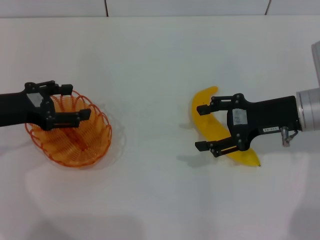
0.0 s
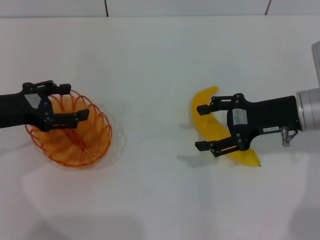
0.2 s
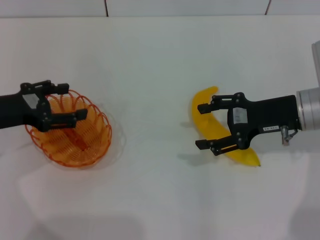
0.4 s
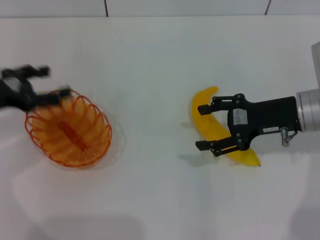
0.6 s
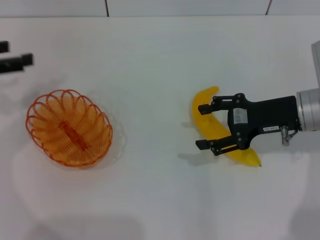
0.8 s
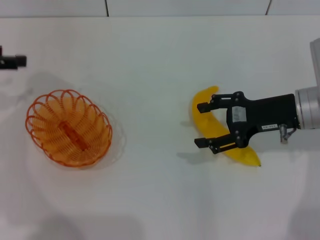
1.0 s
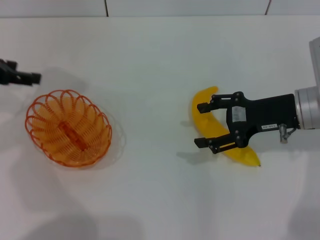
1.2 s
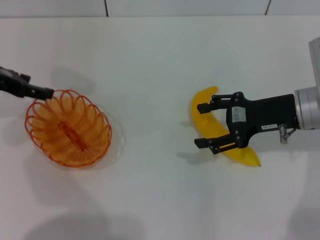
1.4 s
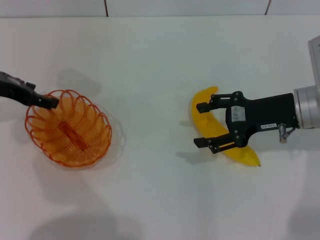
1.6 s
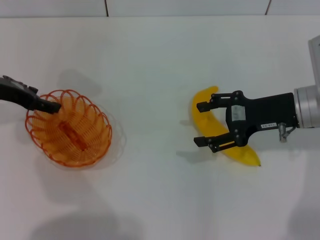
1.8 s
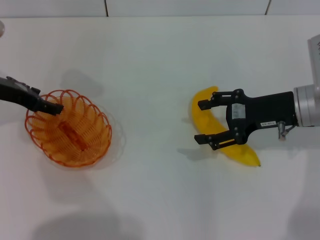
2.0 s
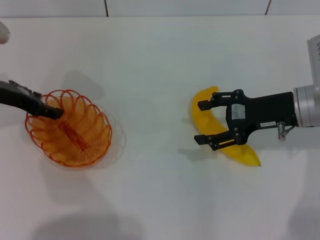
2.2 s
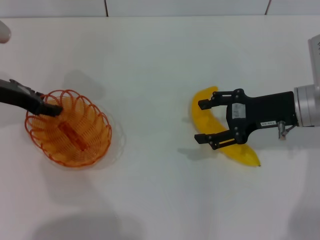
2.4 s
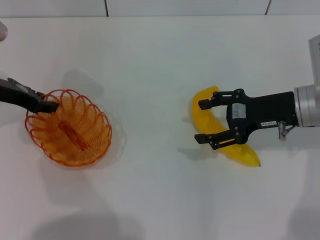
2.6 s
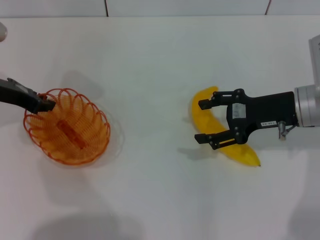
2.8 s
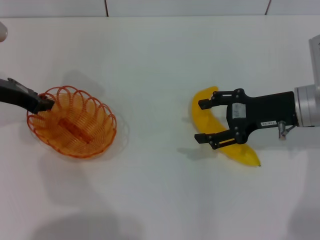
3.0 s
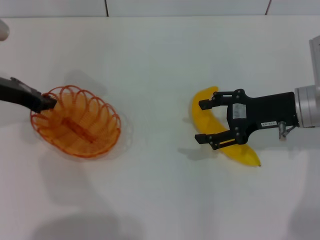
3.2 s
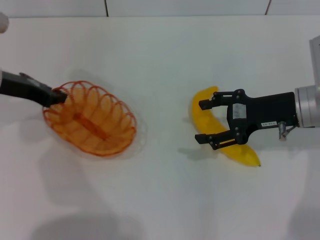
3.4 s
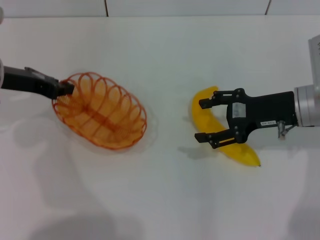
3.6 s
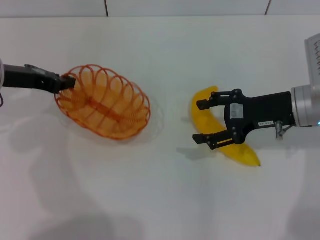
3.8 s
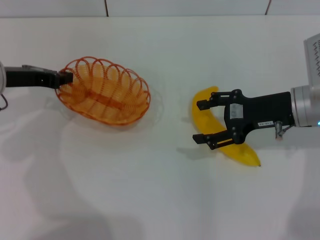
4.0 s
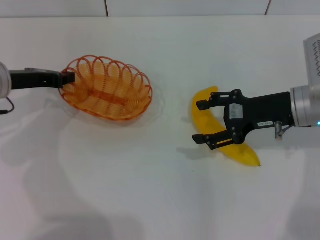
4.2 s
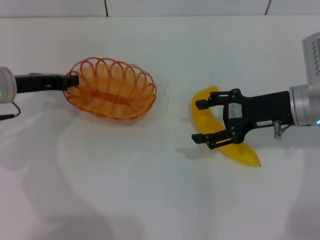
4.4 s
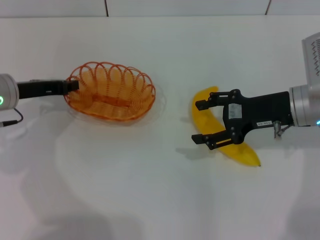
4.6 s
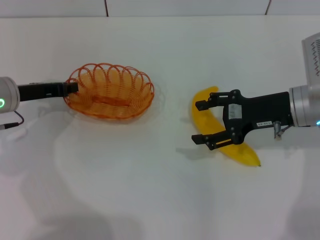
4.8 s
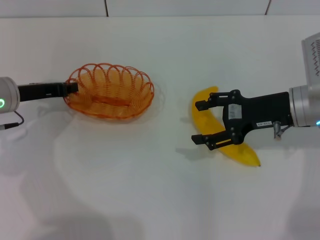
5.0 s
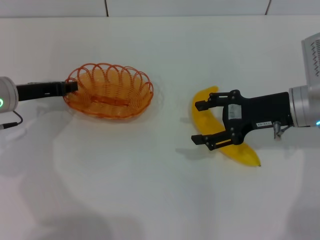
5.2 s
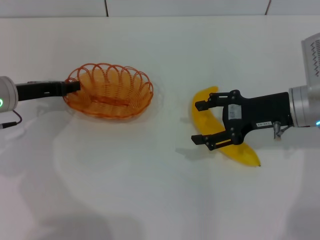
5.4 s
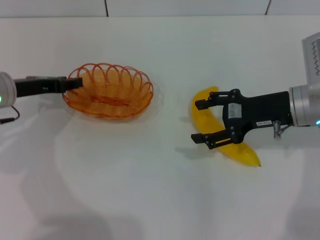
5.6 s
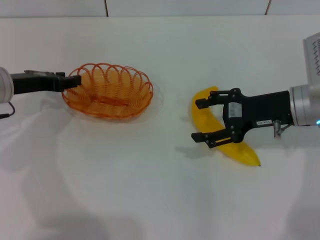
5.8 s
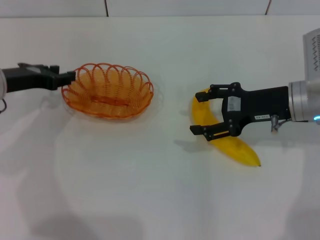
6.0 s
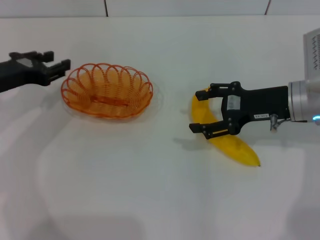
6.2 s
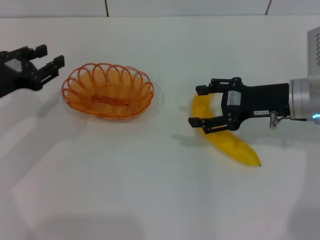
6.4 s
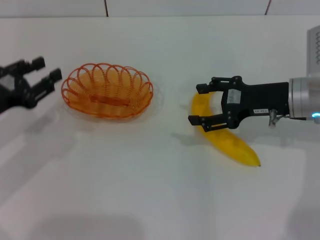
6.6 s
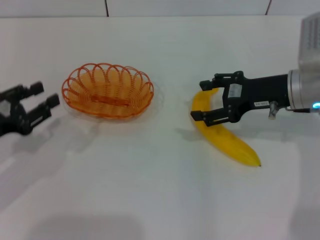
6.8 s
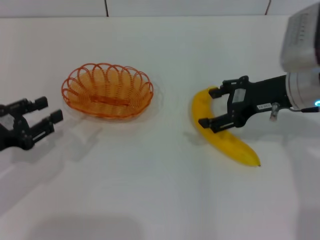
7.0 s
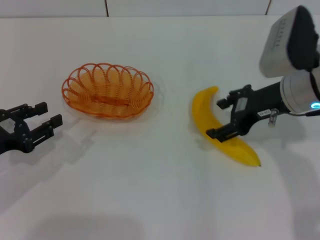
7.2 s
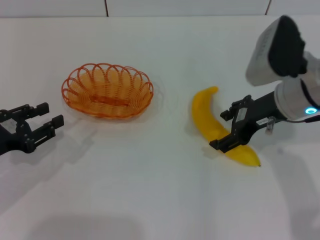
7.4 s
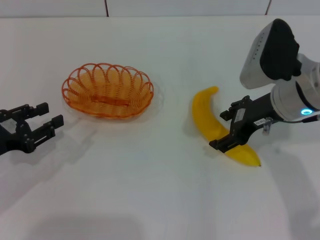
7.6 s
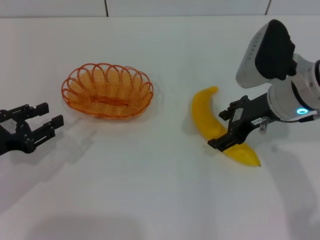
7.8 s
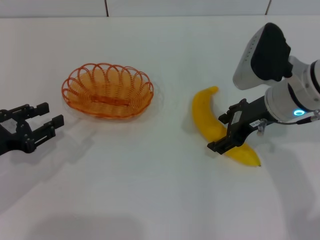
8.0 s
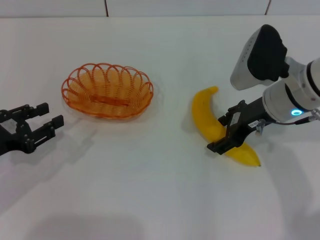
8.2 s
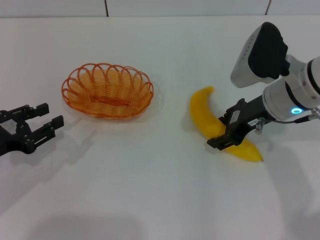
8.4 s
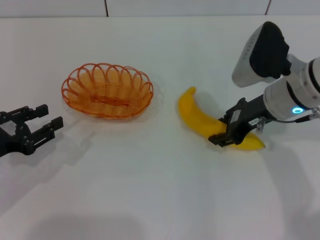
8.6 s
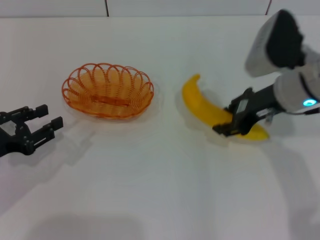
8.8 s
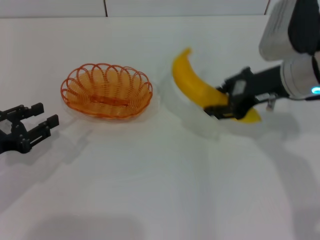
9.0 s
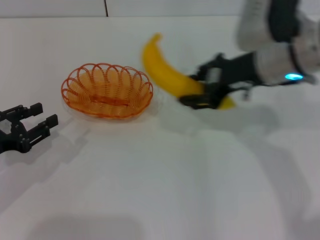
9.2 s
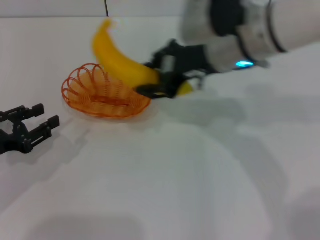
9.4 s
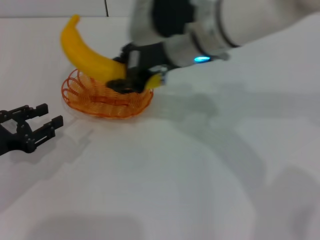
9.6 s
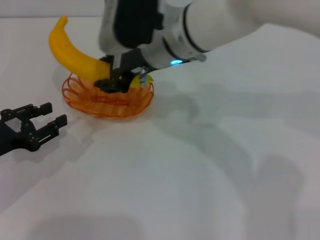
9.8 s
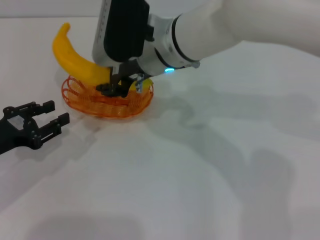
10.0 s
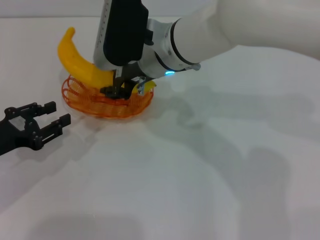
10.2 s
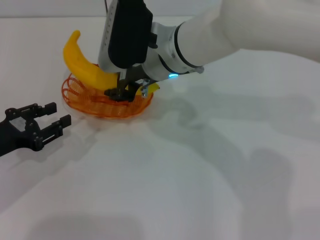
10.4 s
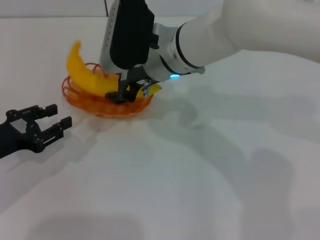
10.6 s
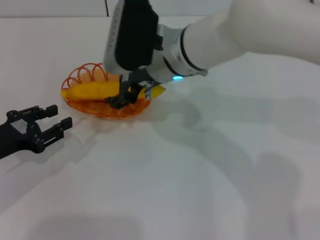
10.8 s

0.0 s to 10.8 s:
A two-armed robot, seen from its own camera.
Step, 0.0 to 3.6 s: Pick up the basket with the left gripper.
Step, 3.8 to 6.4 s: Place the basket in the center of view with the left gripper.
Step, 6.6 to 8.8 s: Pick up the banana with the right gripper.
0.0 to 1.6 s: The left gripper shifts roughly 5 cm forward.
1.6 to 3.0 s: The left gripper closes its fingers.
4.6 to 6.2 s: The left gripper opens.
6.2 to 7.8 s: The left gripper heads backward, covering about 10 cm, while the right gripper changes place by approximately 5 cm.
7.8 to 9.2 s: The right gripper is displaced upward by some 5 cm, and closes its fingers.
9.2 to 10.8 s: The right gripper moves to the left, about 15 cm, and opens up.

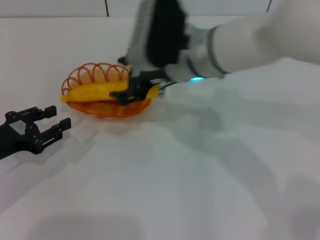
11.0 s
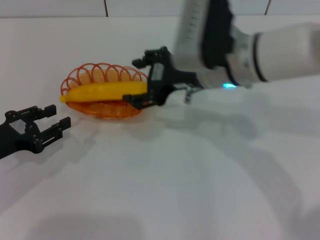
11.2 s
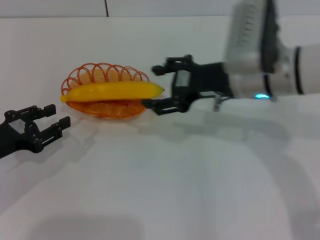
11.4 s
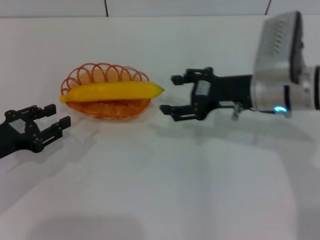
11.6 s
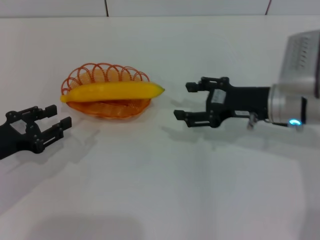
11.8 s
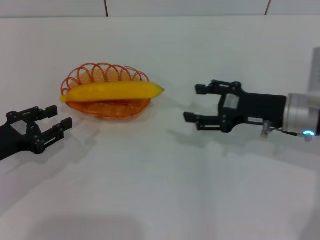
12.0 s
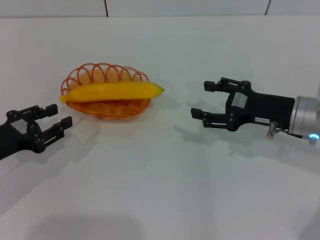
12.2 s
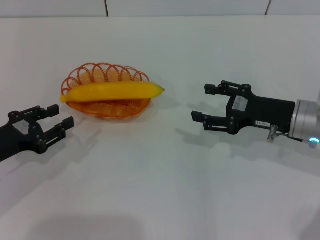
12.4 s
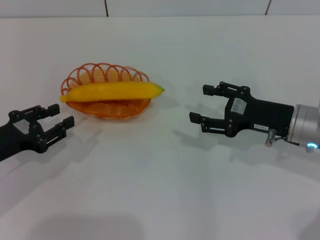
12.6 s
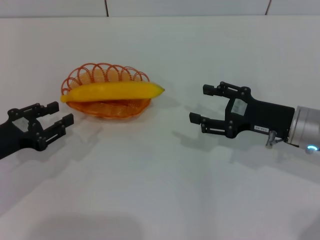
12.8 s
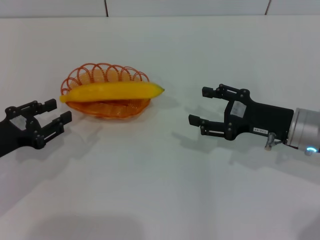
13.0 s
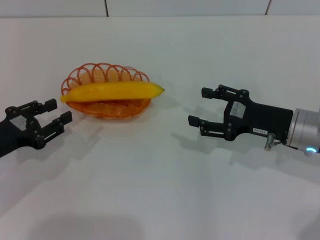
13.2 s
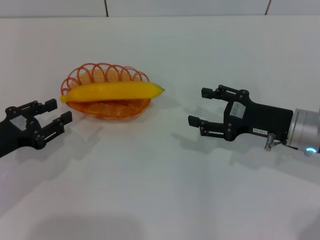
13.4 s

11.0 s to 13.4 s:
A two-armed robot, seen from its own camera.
11.0 to 12.2 s: The right gripper travels to the right and downward by approximately 20 cm.
12.2 to 13.4 s: There are only small adjustments of the grippers.

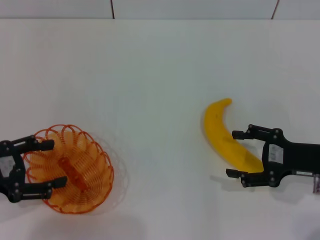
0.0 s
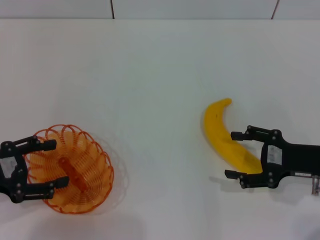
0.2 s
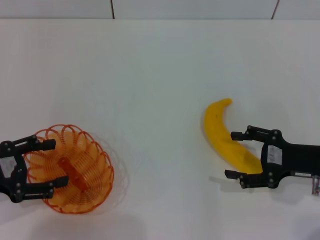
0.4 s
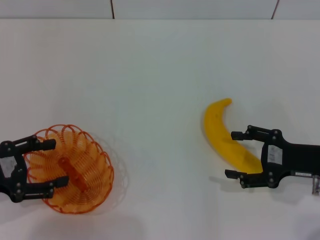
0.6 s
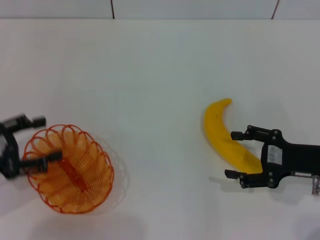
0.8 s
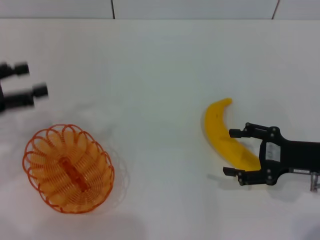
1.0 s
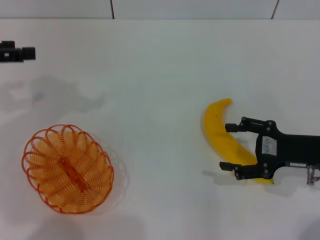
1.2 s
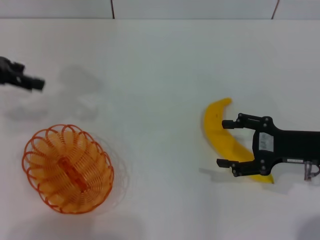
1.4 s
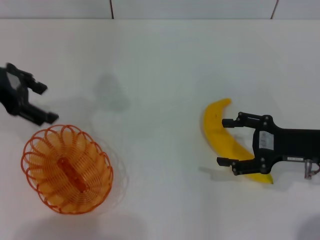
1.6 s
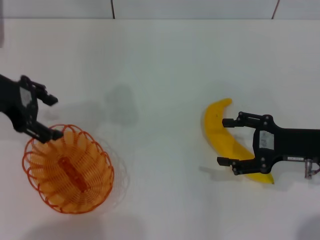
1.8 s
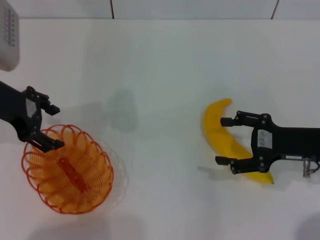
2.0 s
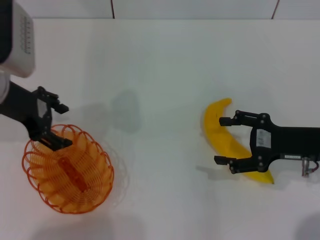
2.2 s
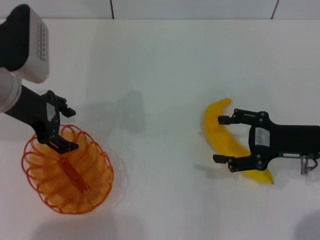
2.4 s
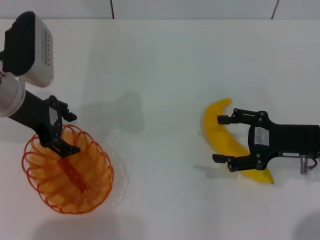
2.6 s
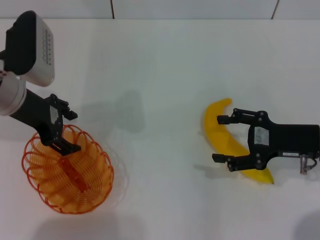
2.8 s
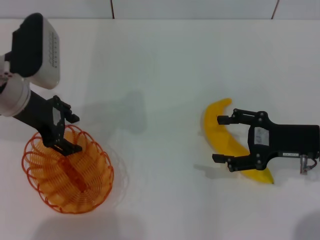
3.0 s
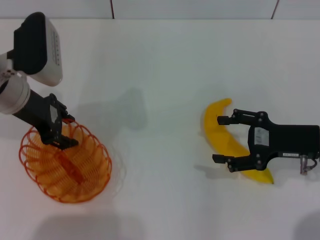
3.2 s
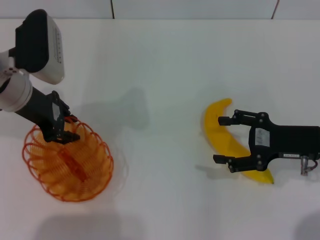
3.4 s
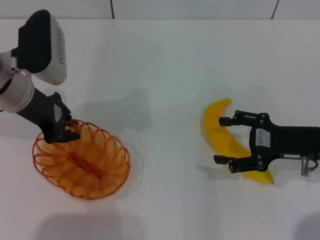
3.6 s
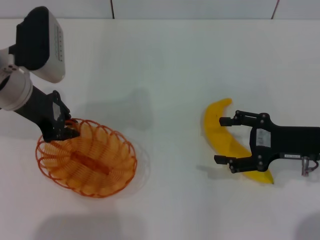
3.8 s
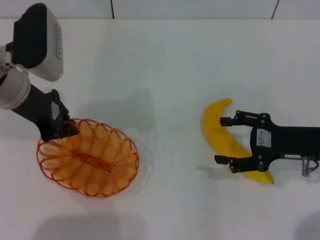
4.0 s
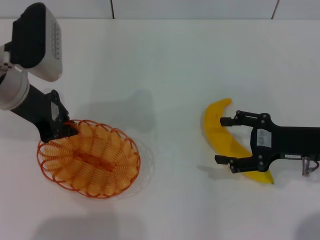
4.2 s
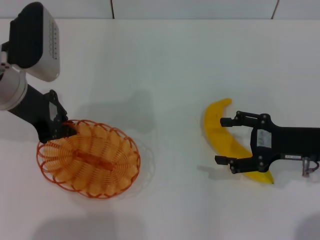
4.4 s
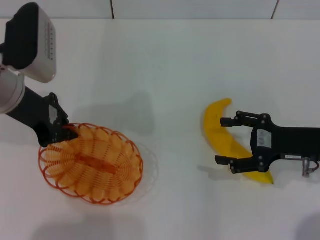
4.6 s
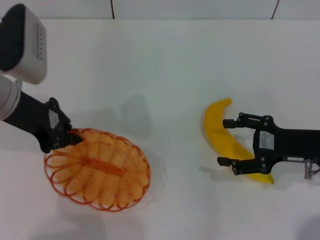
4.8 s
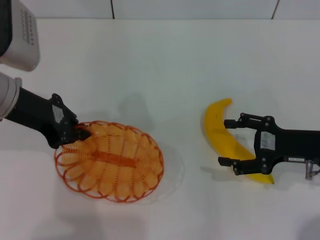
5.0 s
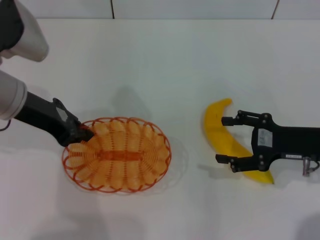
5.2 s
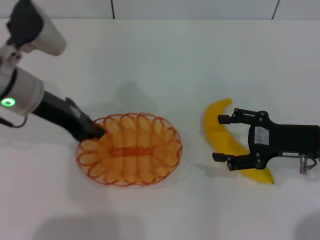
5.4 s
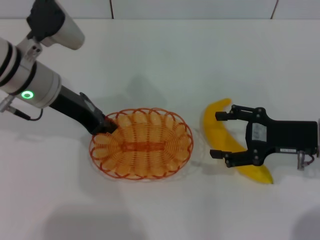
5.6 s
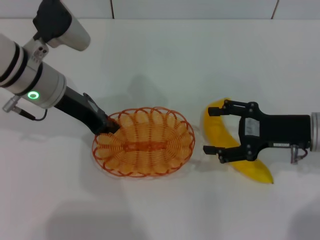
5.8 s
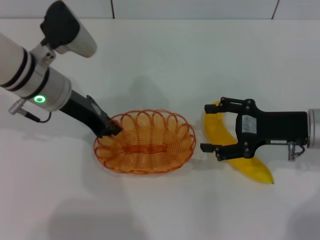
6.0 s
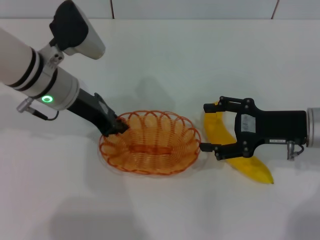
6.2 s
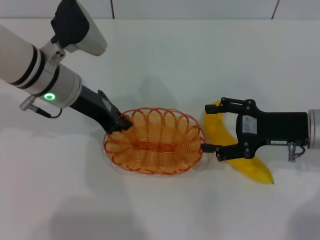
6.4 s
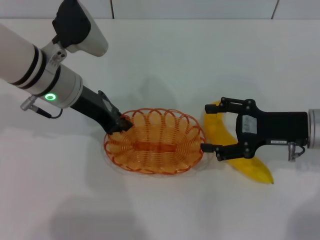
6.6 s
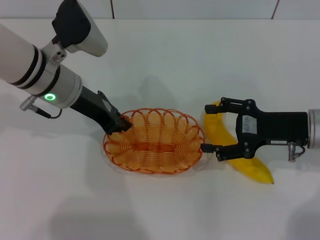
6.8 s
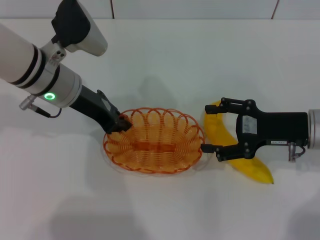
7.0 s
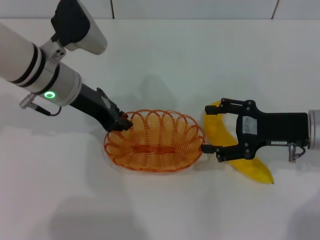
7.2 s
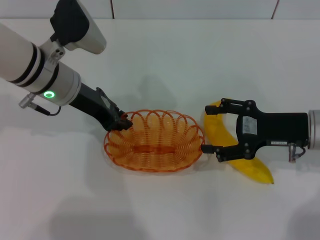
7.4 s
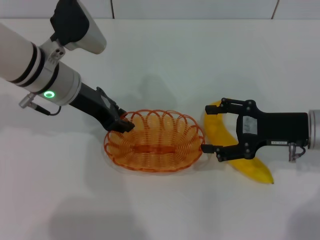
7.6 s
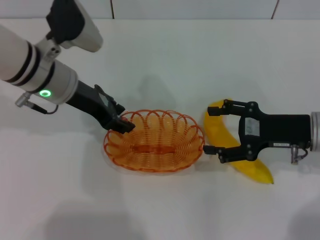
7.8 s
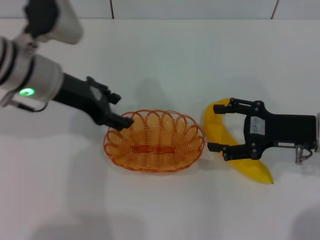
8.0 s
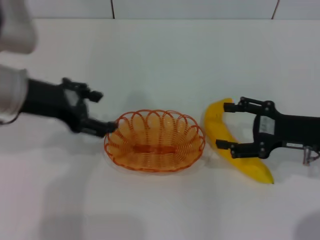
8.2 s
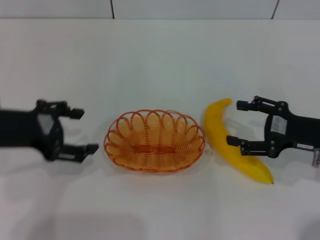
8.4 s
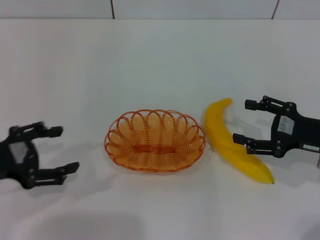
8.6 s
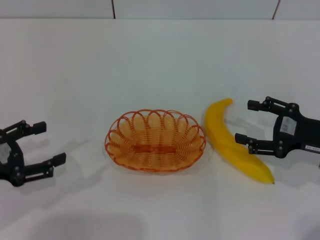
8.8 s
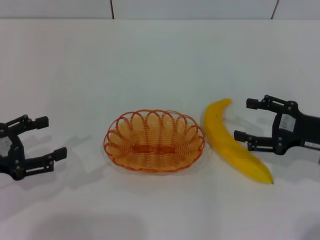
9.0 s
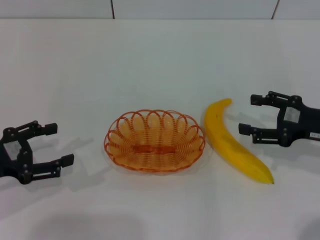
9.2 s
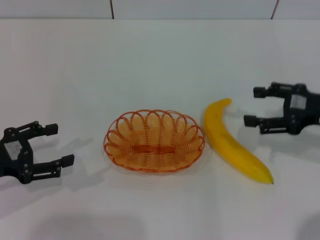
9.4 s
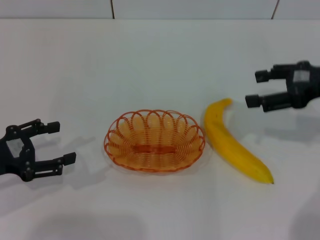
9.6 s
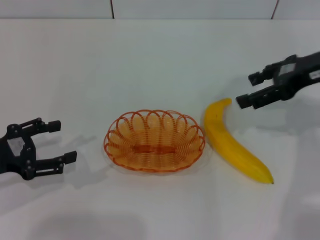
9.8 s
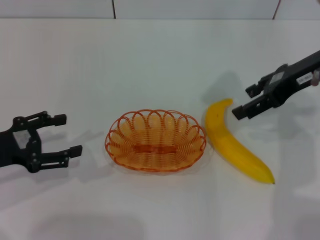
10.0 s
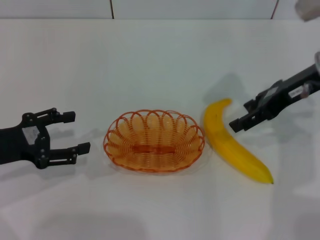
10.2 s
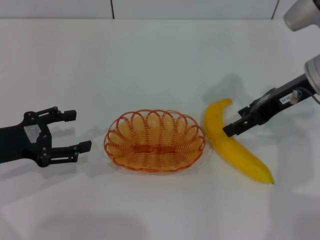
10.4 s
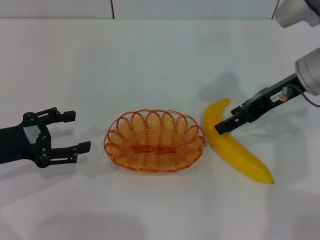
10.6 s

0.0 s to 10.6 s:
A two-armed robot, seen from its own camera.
Step, 0.0 to 4.8 s: Pick up the basket with the left gripper.
Step, 5.0 to 7.8 s: Place the basket in the center of view with the left gripper.
0.0 to 1.6 s: The left gripper goes roughly 20 cm forward and upward.
1.6 to 3.0 s: The left gripper goes roughly 10 cm to the right and downward.
3.0 to 4.6 s: The left gripper closes.
4.6 to 6.0 s: The left gripper moves roughly 5 cm.
6.0 to 7.6 s: The grippers move only a little.
7.6 to 9.0 s: The right gripper shifts by approximately 5 cm. The left gripper is displaced to the left and backward by roughly 25 cm, and opens up.
9.0 to 10.6 s: The right gripper moves forward, upward and to the left, approximately 15 cm.
